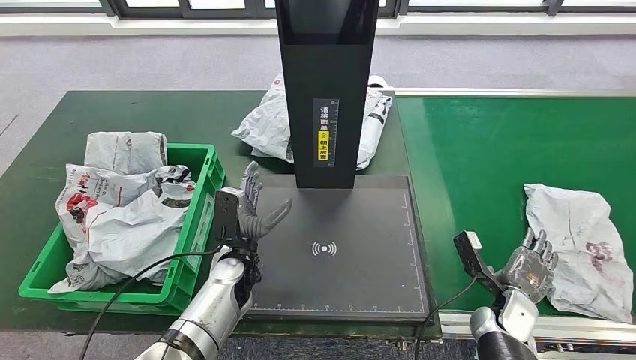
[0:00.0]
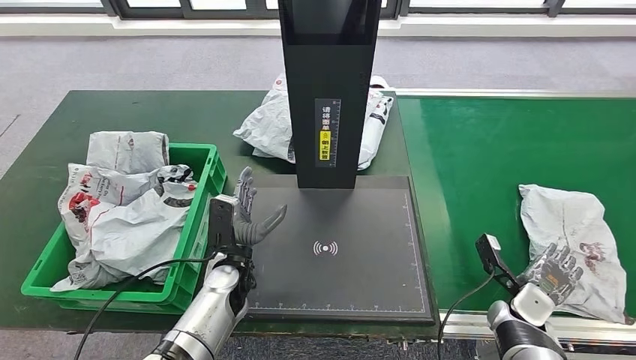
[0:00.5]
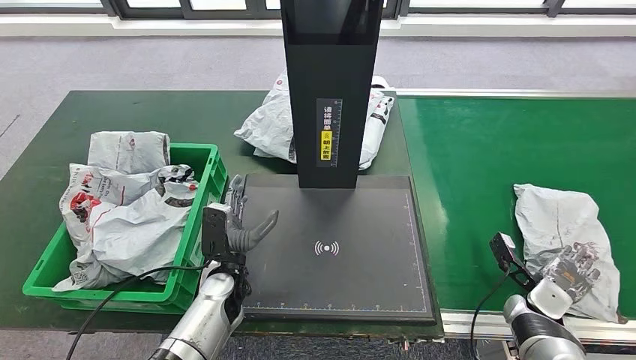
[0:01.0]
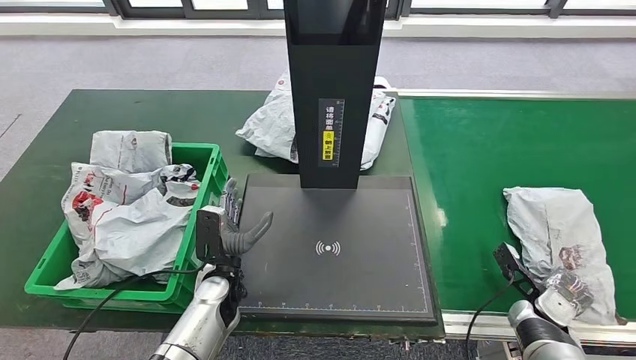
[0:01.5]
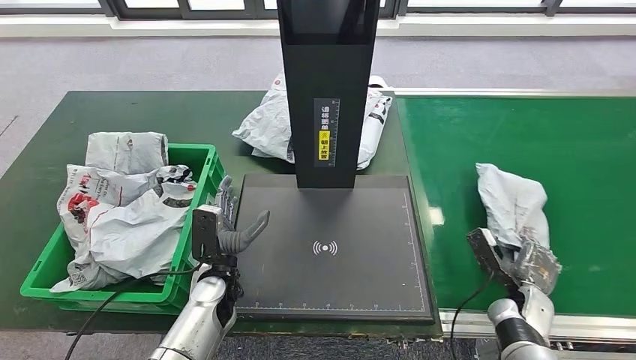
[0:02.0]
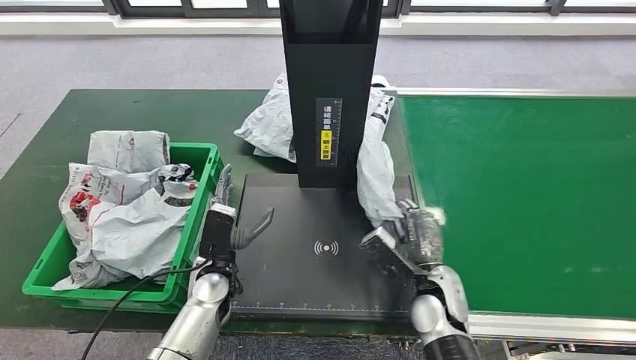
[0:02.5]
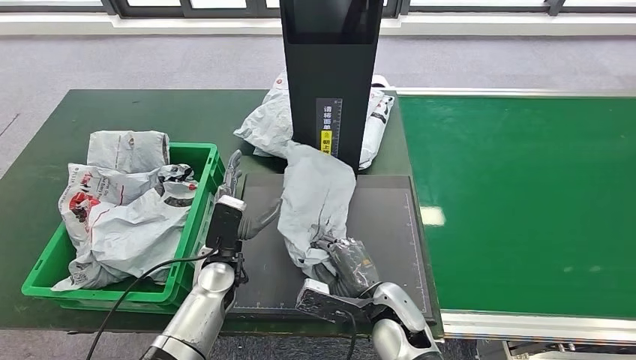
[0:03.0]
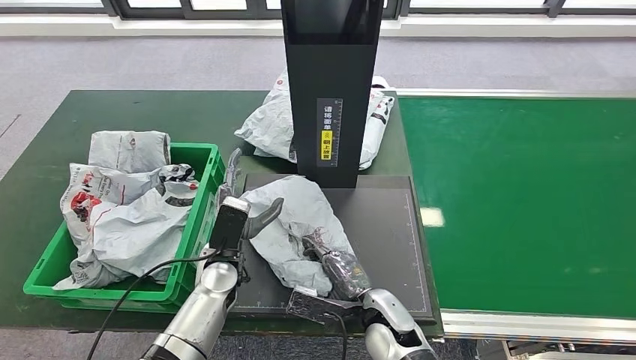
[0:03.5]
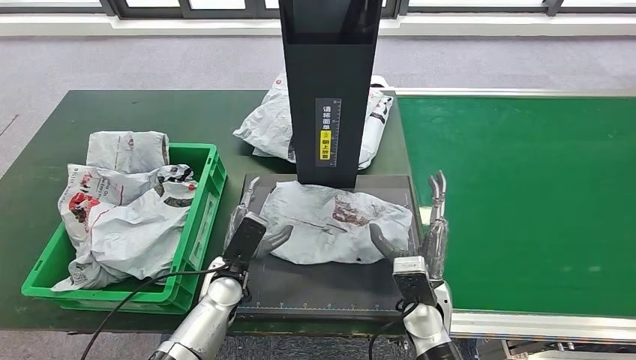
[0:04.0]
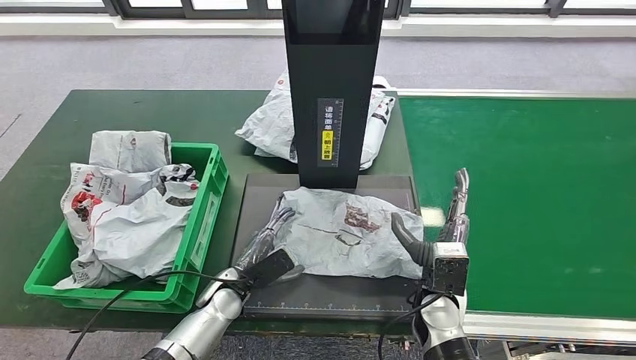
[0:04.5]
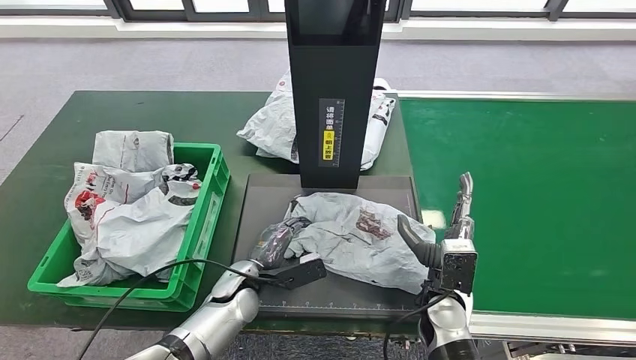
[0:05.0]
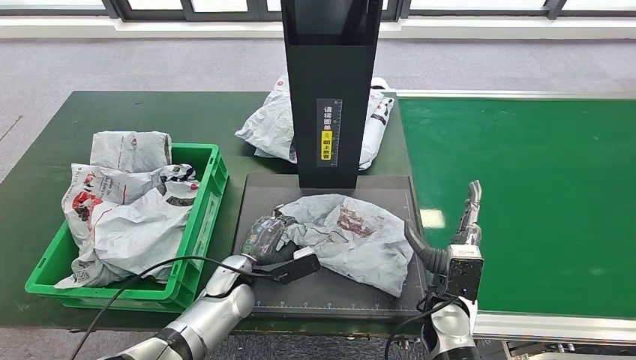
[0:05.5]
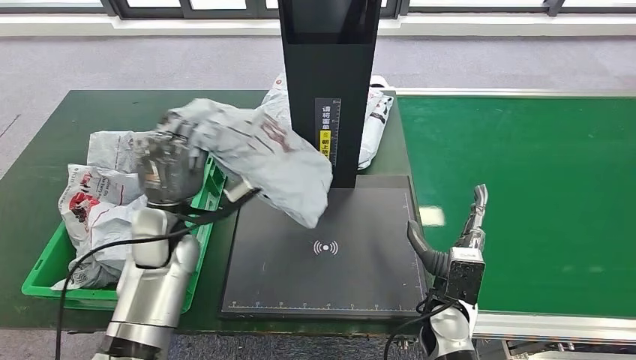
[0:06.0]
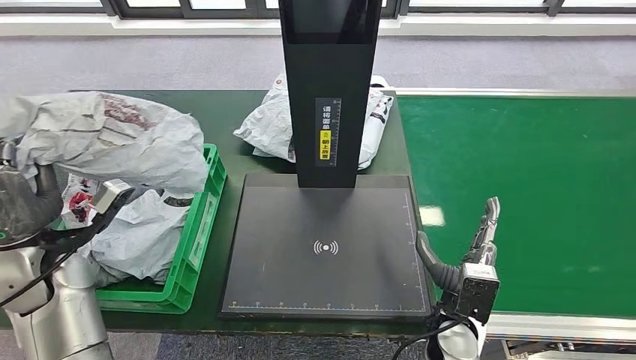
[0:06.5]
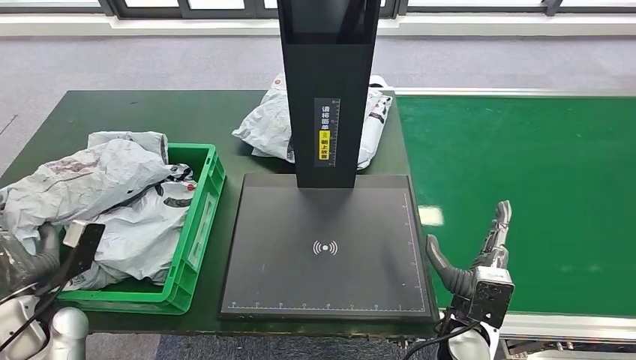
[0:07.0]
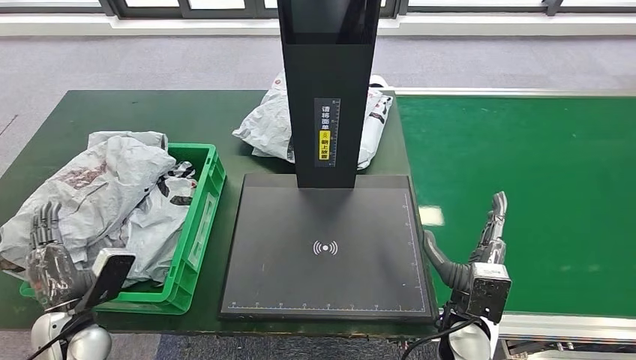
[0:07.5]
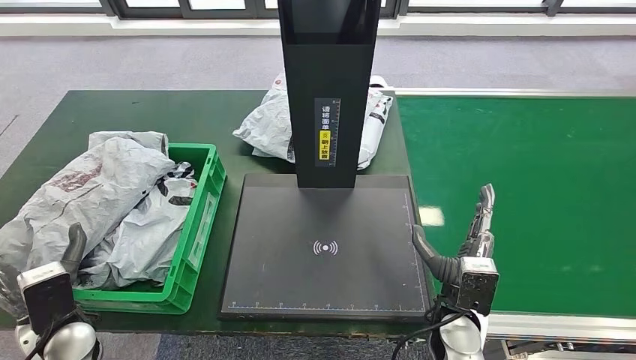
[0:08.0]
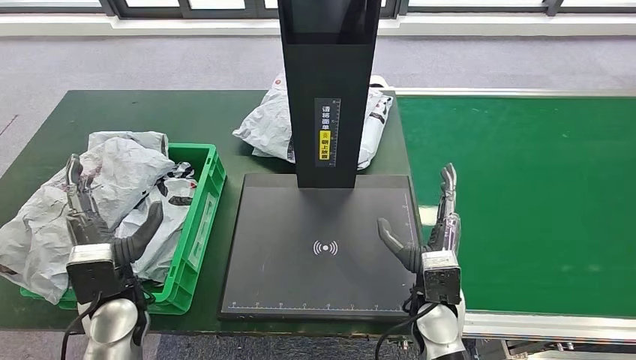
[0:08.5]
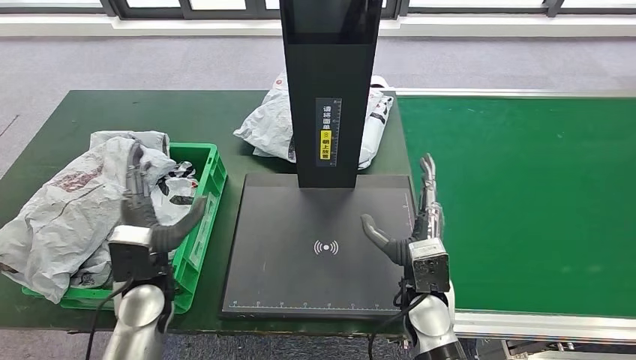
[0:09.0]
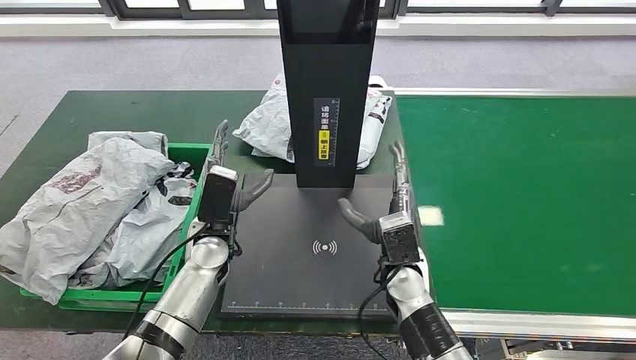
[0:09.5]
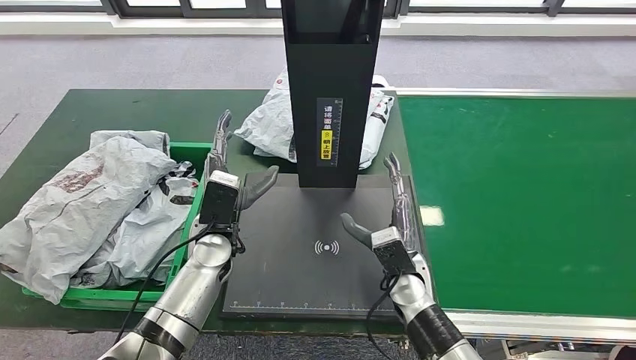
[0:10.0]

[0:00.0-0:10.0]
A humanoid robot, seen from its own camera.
Step, 0:00.0 to 0:02.0: Pick up the parcel from the conveyor belt.
Step, 0:02.5 to 0:04.0: Place the parcel onto the inbound machine.
Step, 0:04.5 to 0:06.0: Pick up the parcel from the inbound machine.
Step, 0:06.5 to 0:10.0: Place the parcel into the delivery box.
0:08.0 to 0:10.0: The left hand is displaced to the right and forward by approximately 25 cm. Meanwhile the right hand shifts approximately 10 cm forward and to the left.

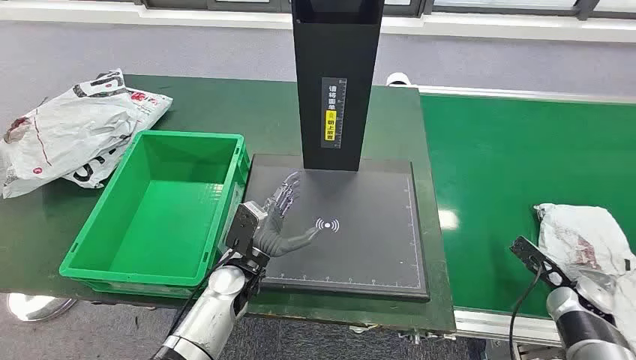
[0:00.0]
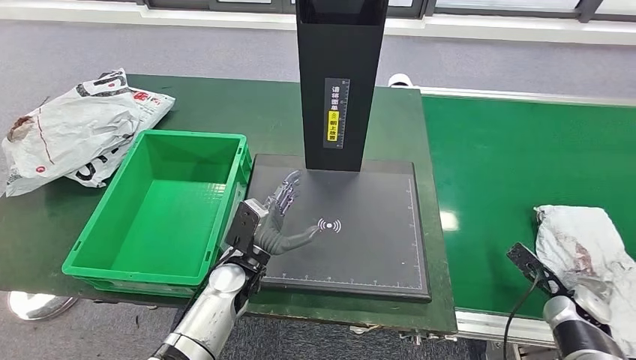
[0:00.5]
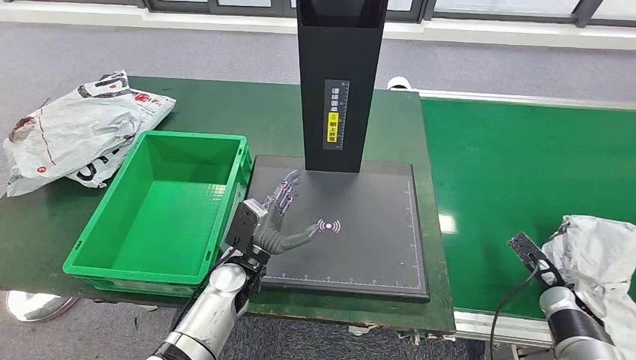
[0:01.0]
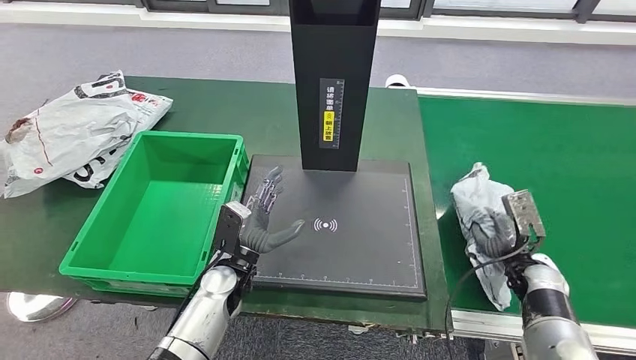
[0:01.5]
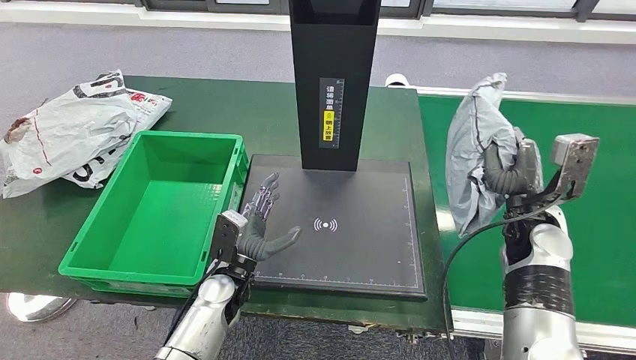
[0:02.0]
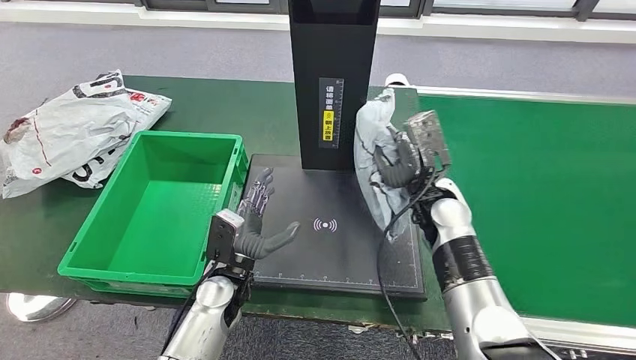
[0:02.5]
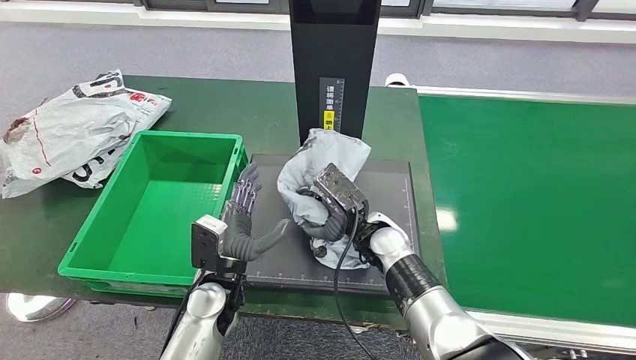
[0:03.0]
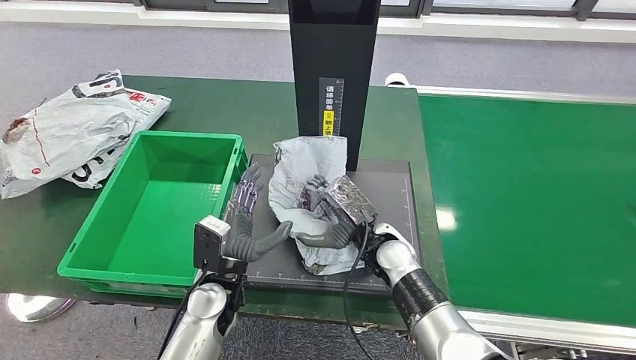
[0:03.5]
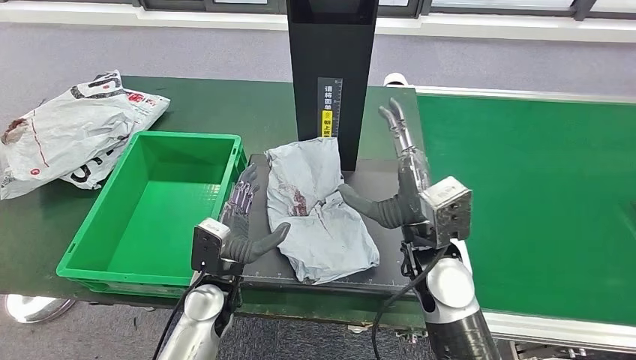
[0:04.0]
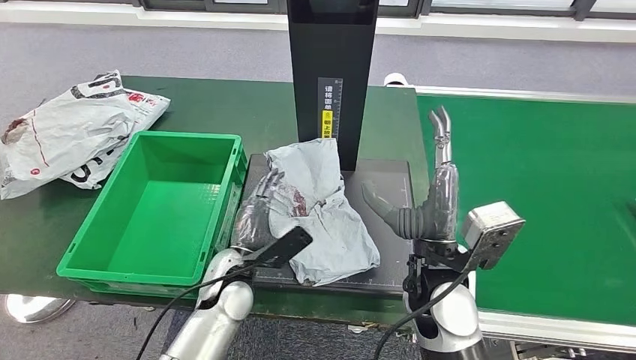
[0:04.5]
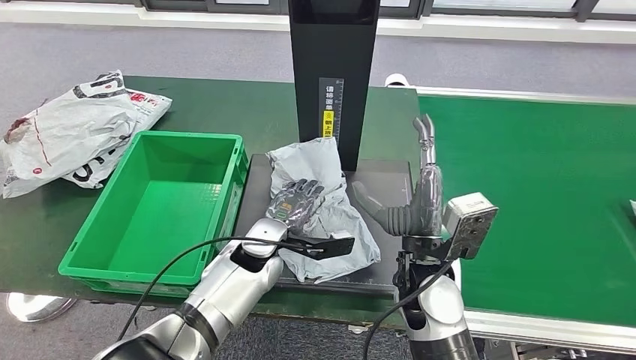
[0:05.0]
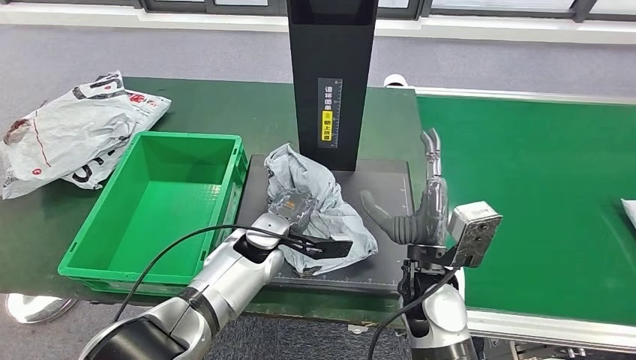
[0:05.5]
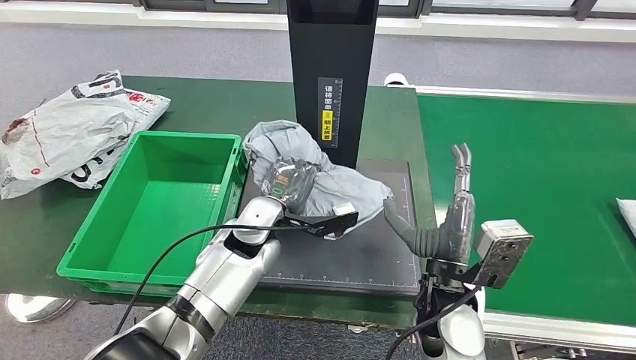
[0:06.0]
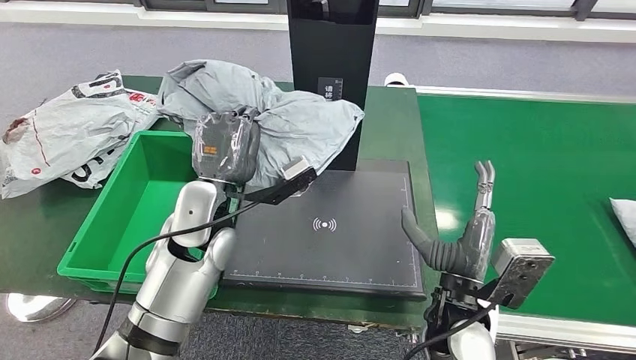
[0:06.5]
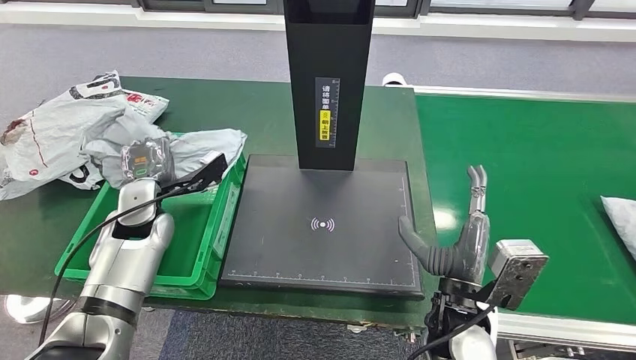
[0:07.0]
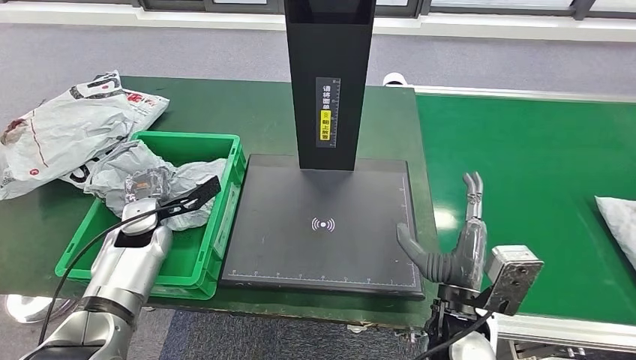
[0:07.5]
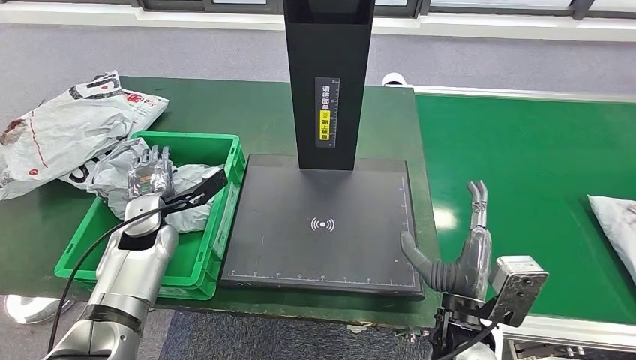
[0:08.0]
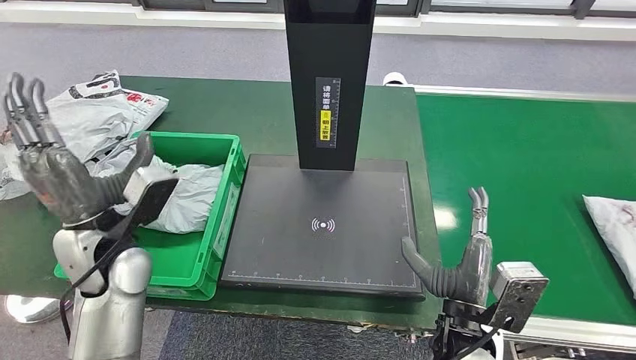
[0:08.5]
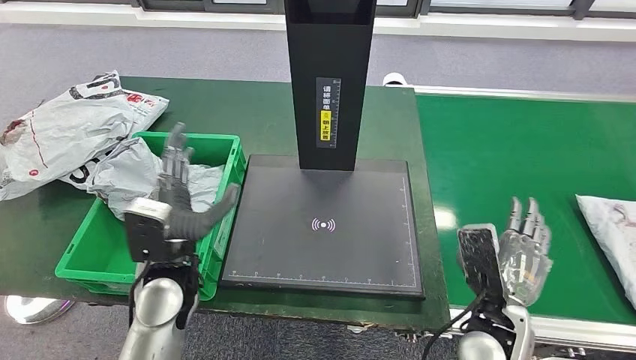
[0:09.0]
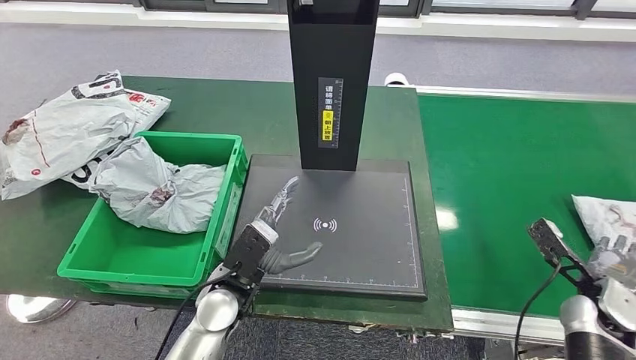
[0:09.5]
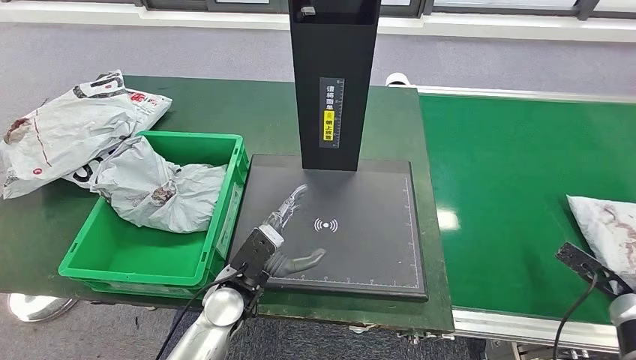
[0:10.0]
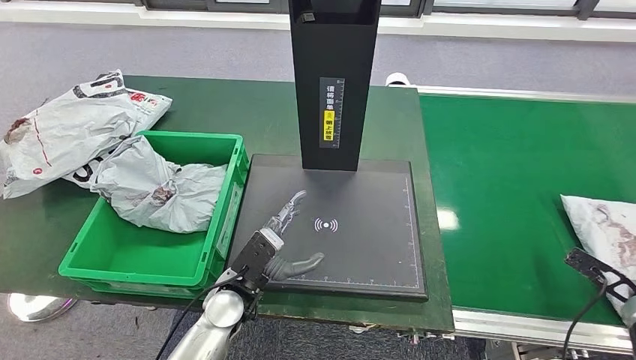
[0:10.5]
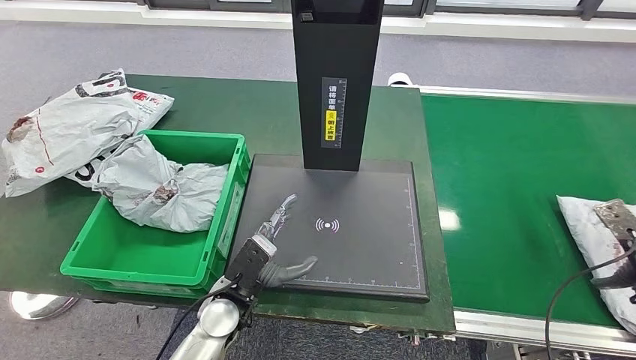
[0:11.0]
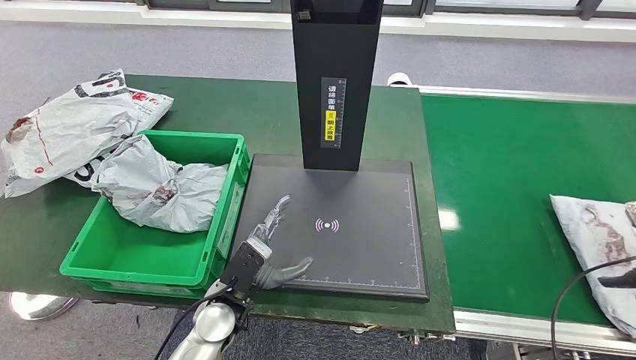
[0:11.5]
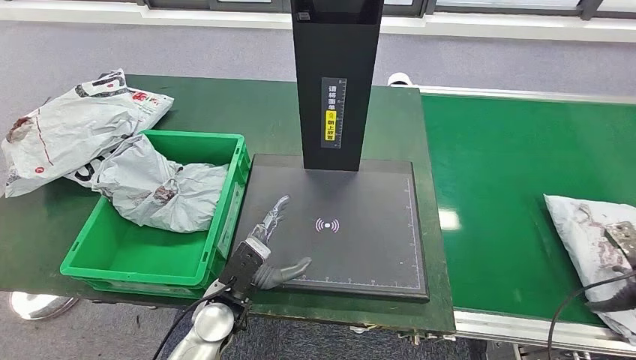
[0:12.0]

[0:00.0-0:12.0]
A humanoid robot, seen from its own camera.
Step, 0:00.0 to 0:02.0: Take the parcel off the conveyor belt.
Step, 0:02.5 to 0:04.5: Place the parcel onto the inbound machine.
Step, 0:05.0 to 0:06.5: Pick up the parcel from the inbound machine.
Step, 0:07.0 to 0:08.5: Put the parcel inside the courier box.
0:04.0 to 0:06.0: The right hand moves backward, some 5 cm, while the left hand goes about 15 cm forward, to the right and upward.
